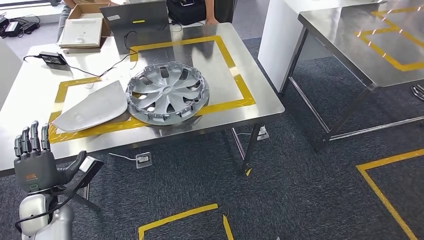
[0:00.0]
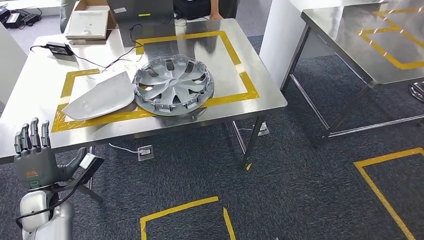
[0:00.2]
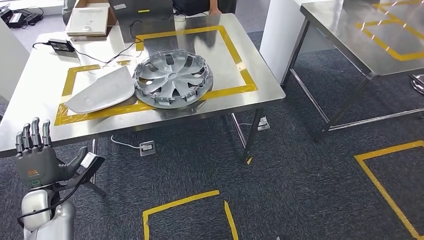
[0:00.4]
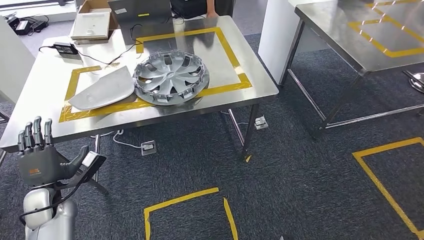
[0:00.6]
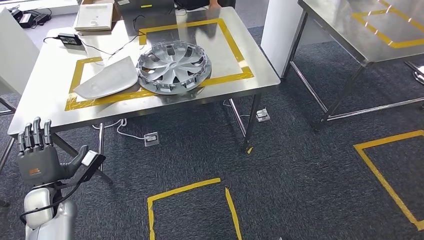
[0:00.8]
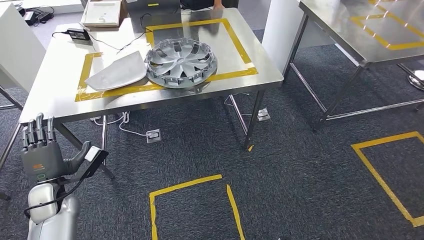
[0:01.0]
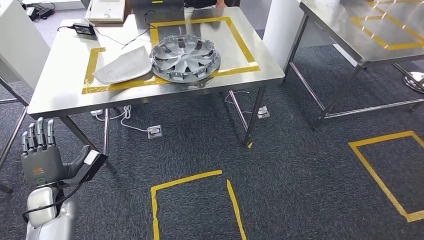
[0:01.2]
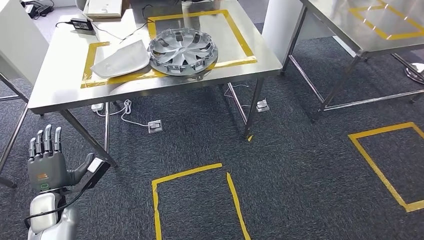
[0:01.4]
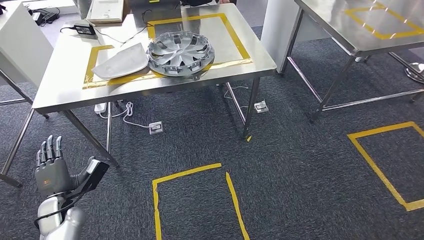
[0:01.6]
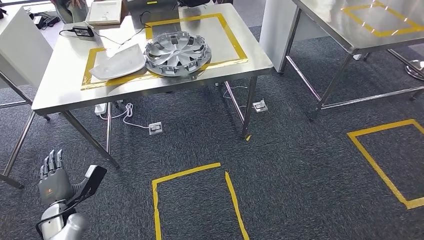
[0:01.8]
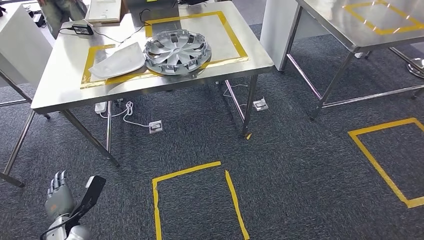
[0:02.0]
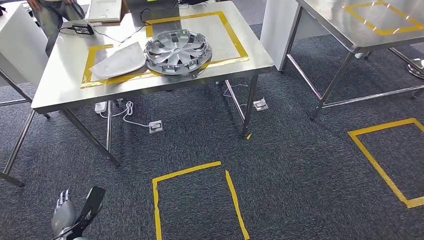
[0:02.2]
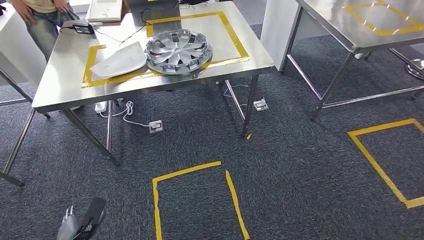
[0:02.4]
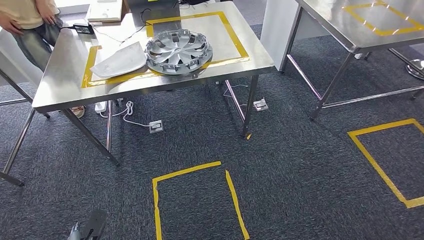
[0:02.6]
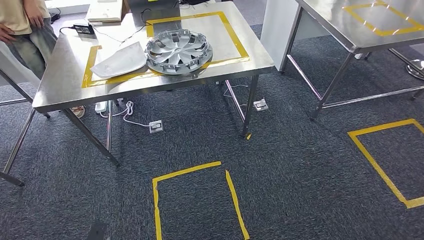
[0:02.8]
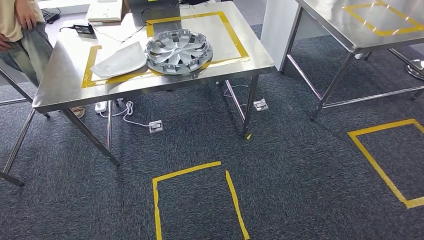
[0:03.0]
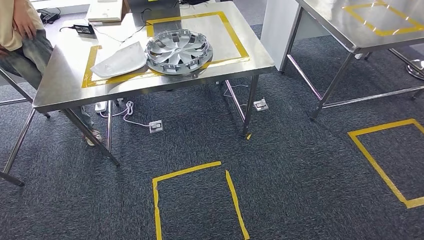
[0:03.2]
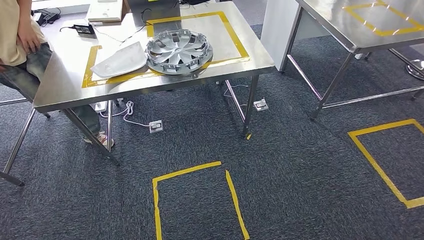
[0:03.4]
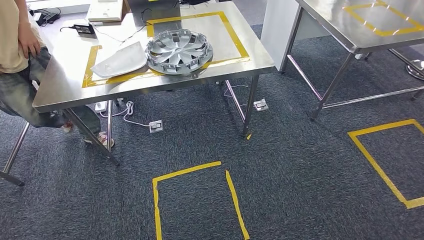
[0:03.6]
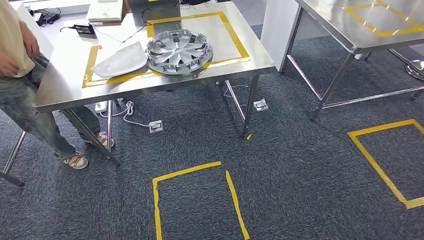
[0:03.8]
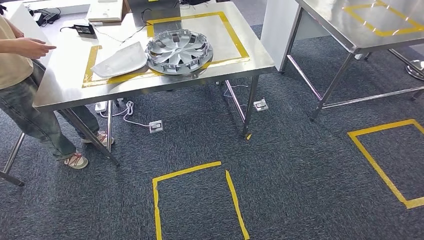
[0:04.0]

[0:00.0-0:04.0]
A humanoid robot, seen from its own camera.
Step, 0:00.0 to 0:04.0: Return to the initial position at the workbench.
0:02.6 to 0:04.0: The left hand heads backward, covering roughly 15 cm.

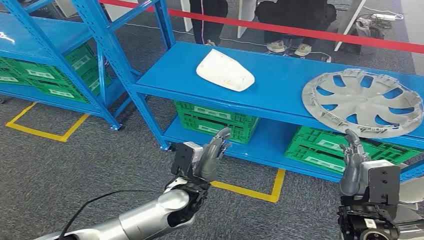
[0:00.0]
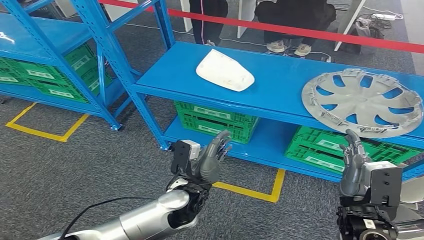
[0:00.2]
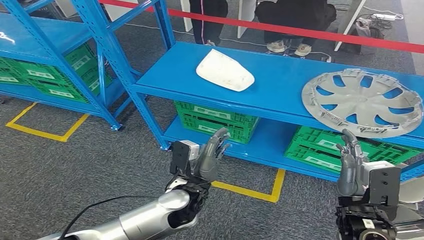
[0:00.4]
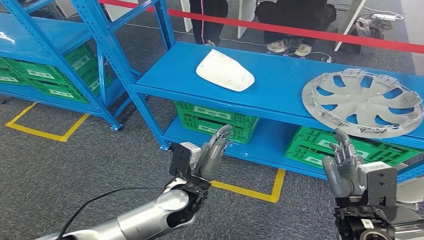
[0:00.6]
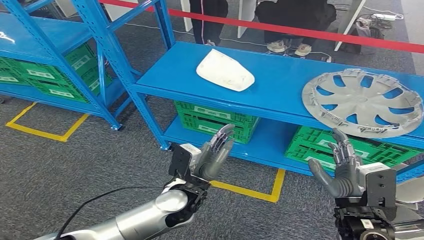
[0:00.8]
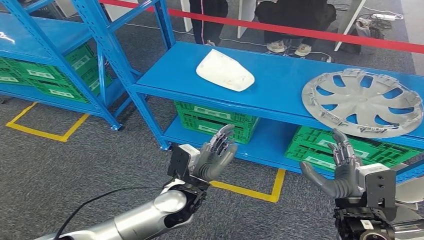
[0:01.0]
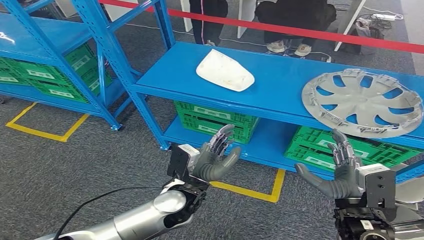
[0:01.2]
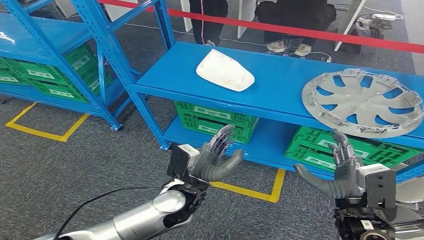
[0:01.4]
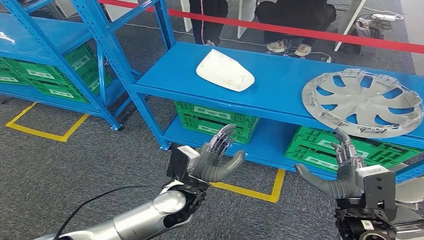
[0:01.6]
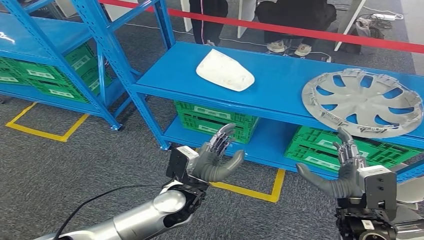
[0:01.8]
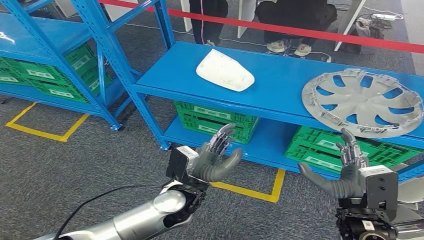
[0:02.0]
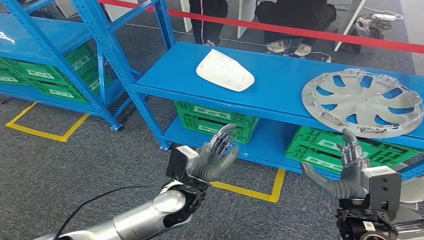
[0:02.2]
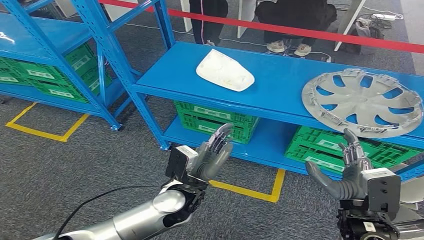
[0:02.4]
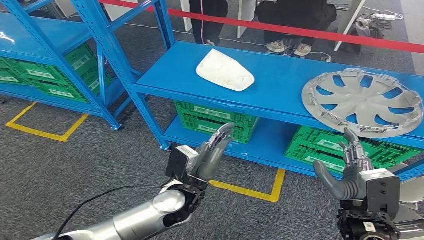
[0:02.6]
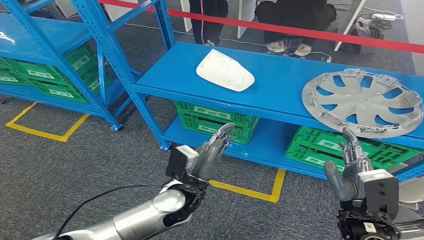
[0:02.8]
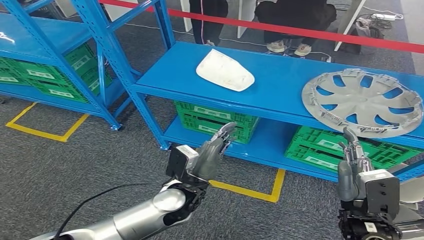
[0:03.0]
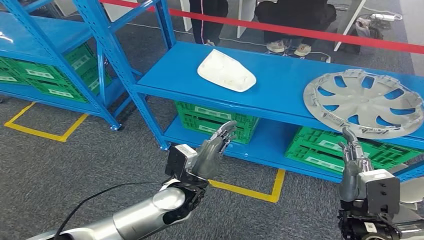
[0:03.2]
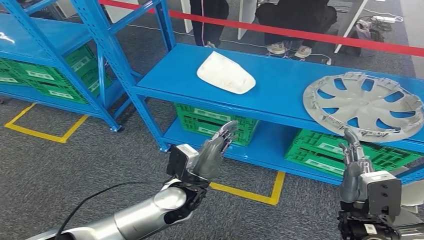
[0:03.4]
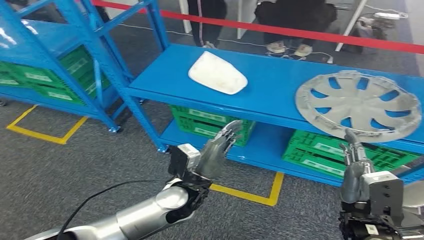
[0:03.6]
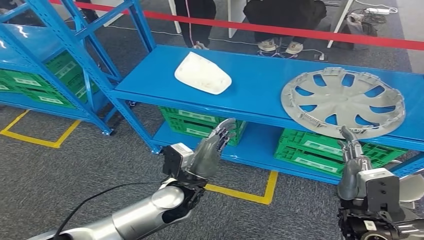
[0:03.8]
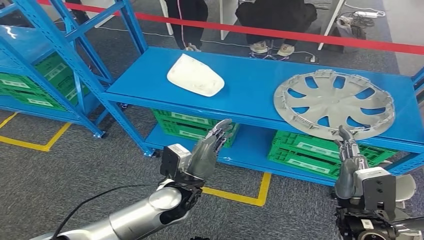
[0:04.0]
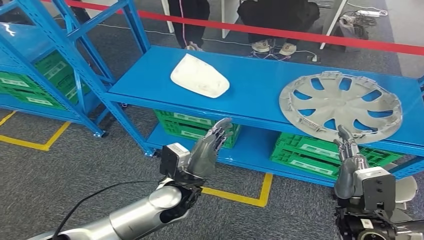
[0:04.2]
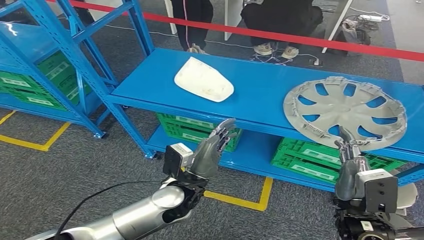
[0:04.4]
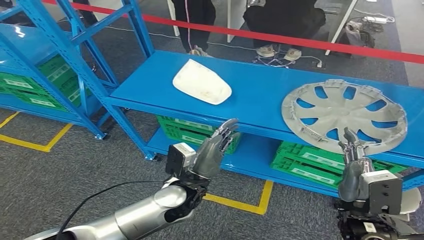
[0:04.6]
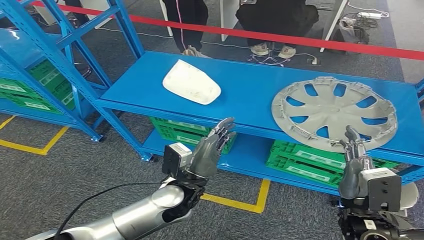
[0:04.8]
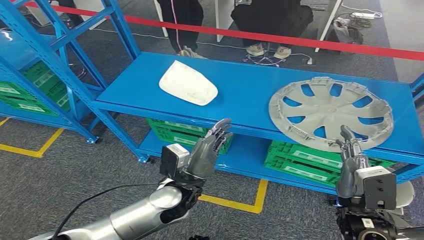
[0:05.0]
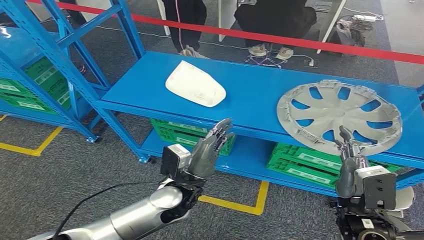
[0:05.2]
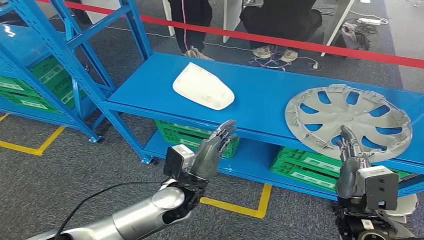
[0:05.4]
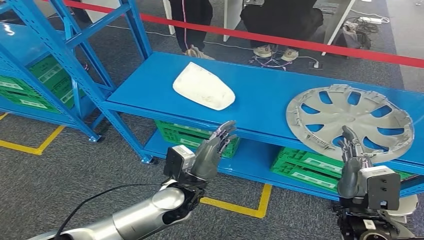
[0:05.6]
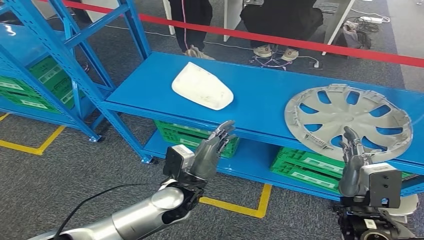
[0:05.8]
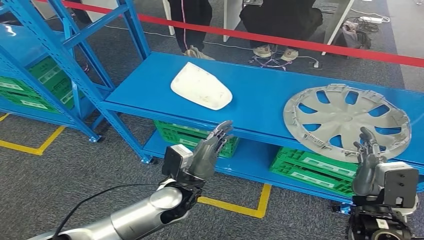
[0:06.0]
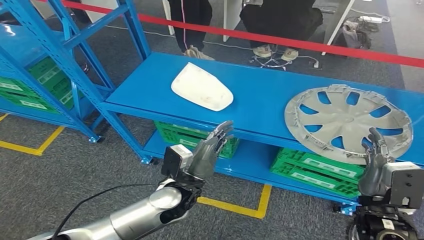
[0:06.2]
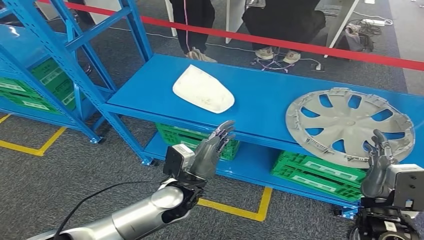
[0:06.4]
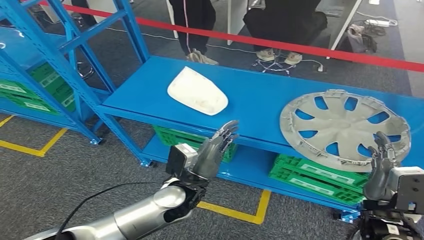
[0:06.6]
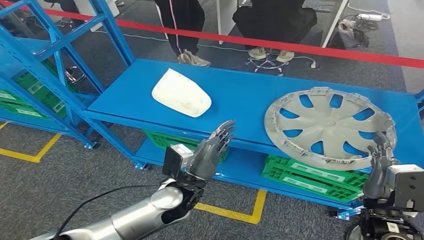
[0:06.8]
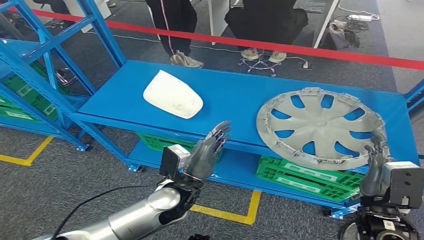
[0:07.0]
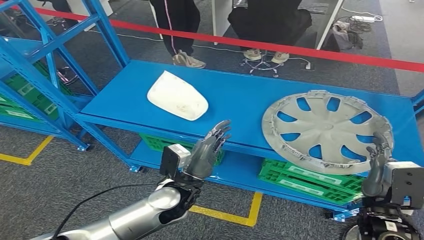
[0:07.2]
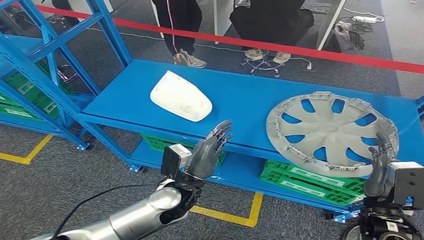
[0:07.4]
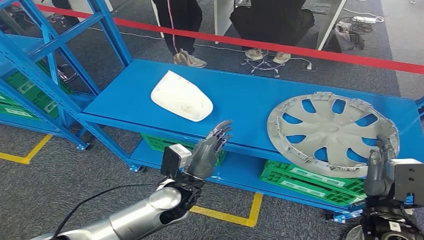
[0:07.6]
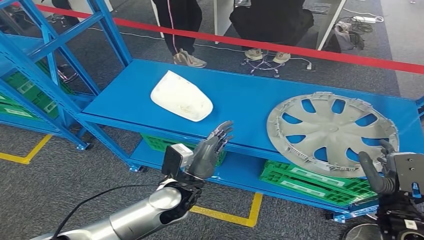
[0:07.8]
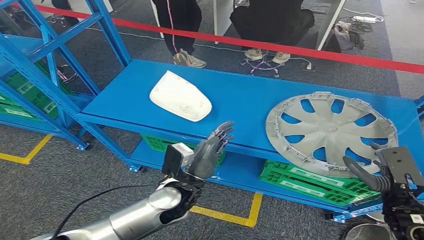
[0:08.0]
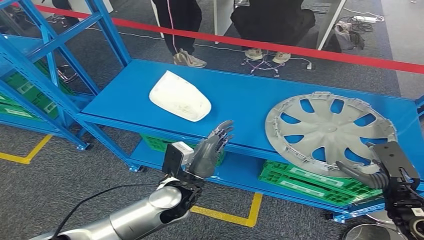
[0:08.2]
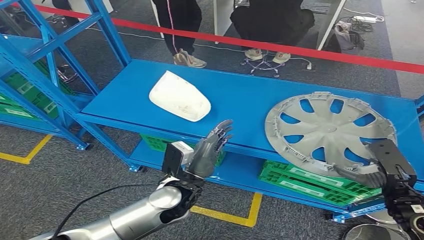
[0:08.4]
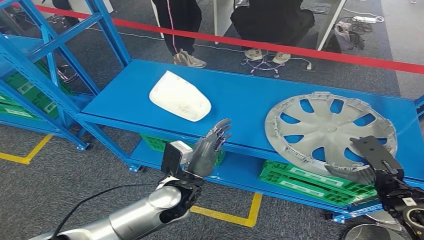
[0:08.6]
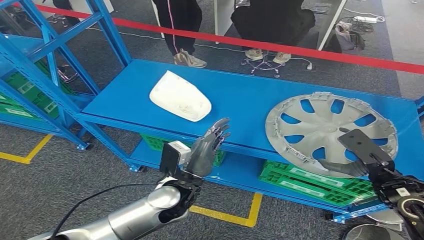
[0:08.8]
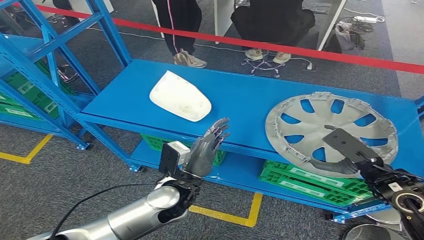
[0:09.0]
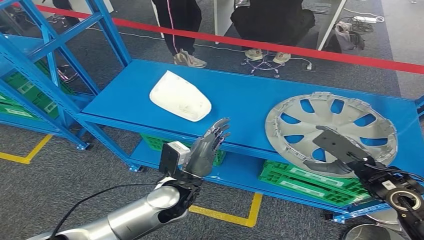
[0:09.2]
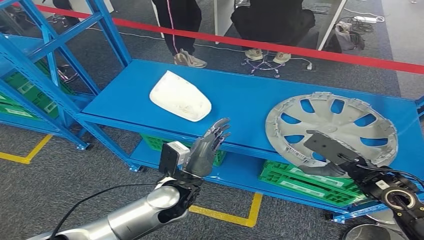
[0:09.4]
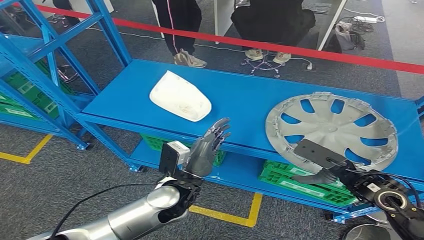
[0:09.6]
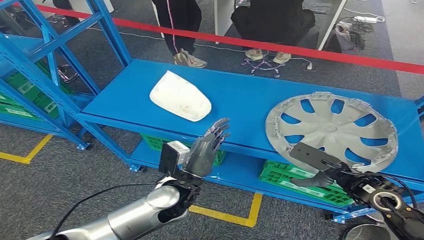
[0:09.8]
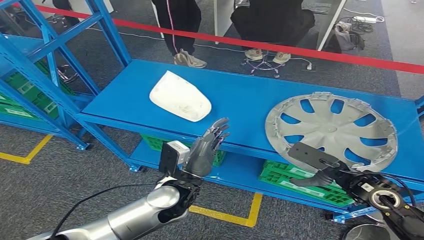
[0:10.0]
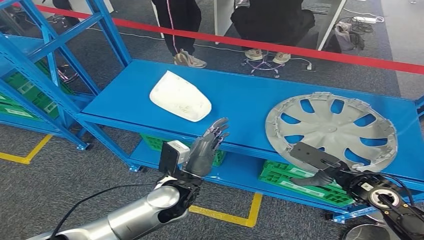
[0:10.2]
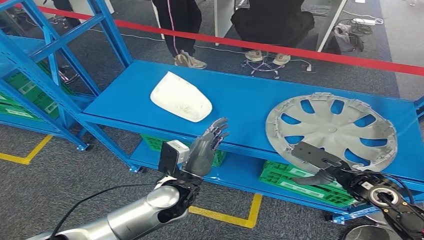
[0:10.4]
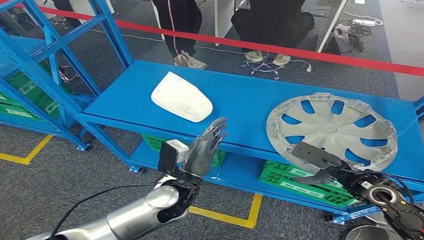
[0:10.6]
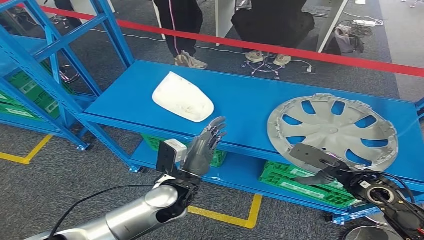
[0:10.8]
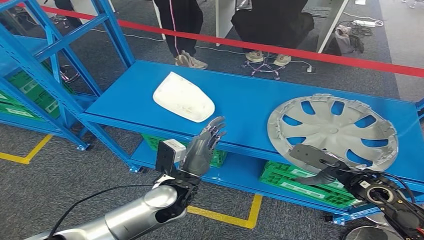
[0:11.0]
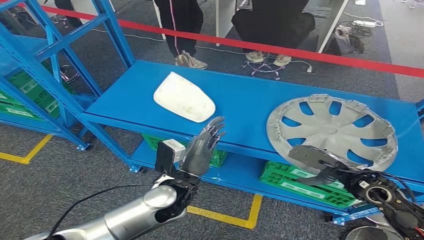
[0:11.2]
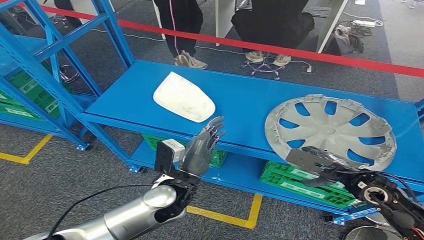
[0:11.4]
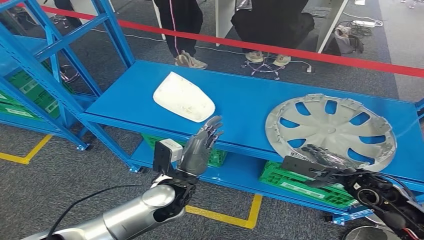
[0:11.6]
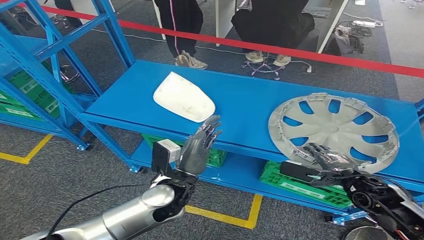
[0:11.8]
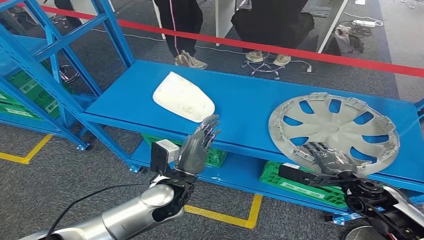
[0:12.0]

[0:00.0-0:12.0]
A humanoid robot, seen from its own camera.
0:01.6 to 0:03.0: Both hands stay put.
0:07.6 to 0:09.0: The right hand moves forward, approximately 10 cm.

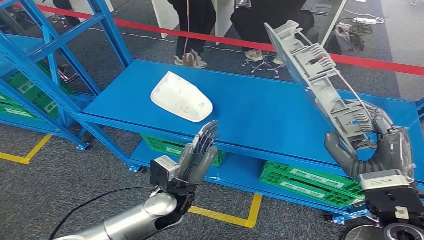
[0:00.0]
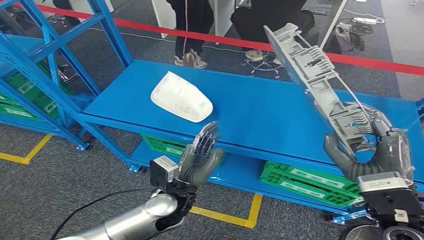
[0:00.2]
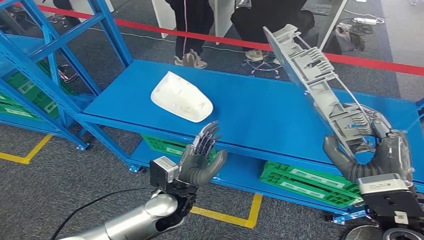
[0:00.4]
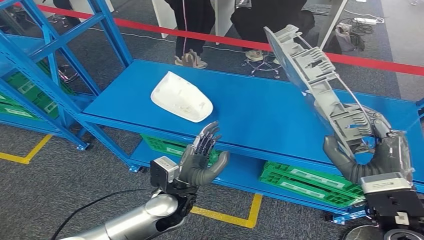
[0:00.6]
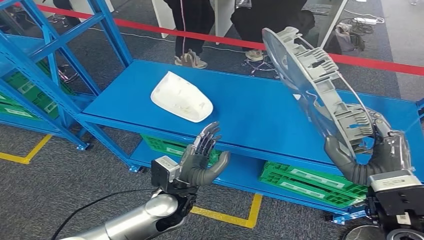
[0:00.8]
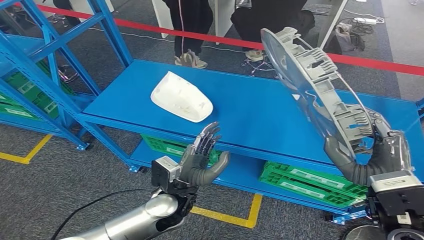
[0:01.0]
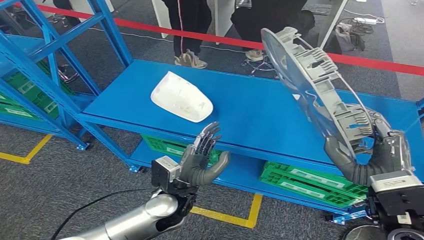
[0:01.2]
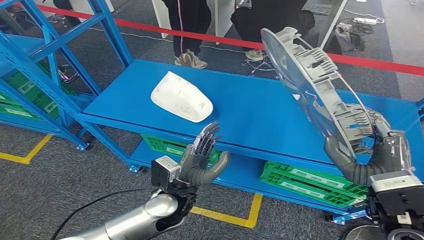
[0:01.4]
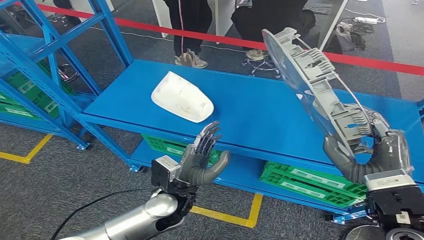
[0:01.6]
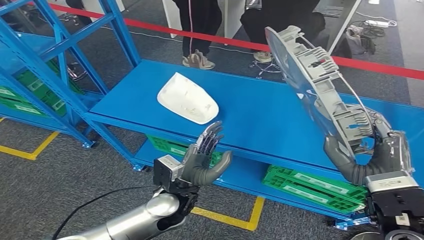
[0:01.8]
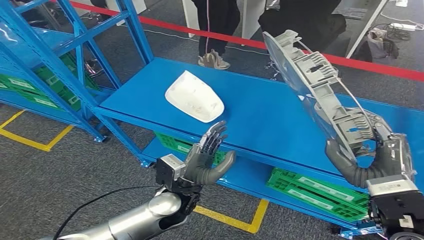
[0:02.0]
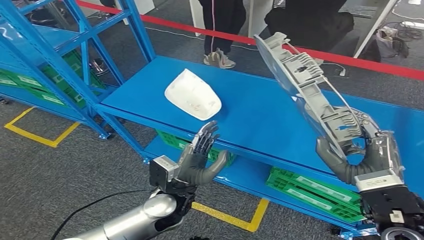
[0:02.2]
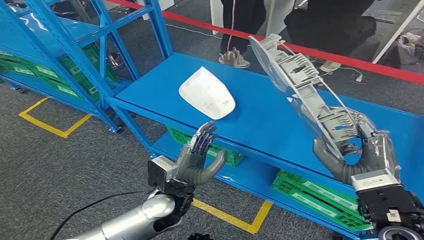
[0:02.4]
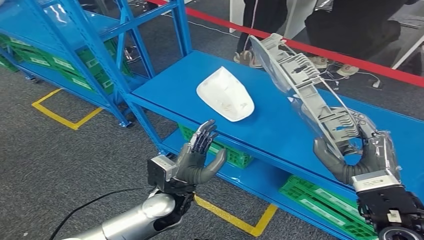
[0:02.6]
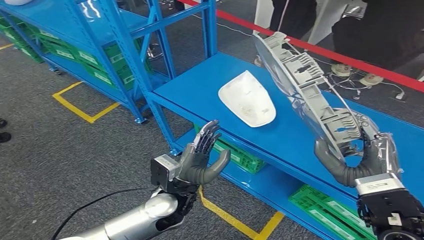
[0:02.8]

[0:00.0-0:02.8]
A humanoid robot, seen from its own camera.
0:00.0 to 0:01.4: The hands make only small movements.
